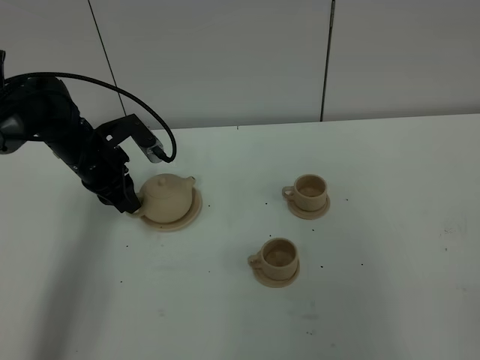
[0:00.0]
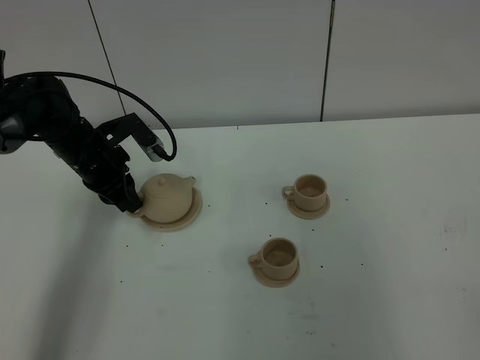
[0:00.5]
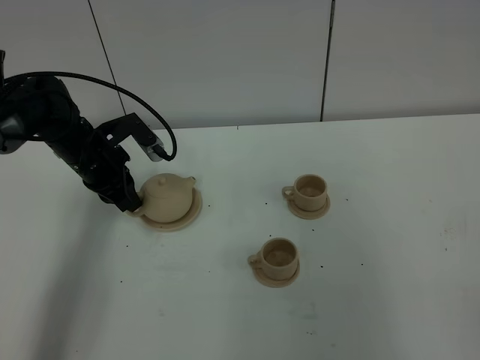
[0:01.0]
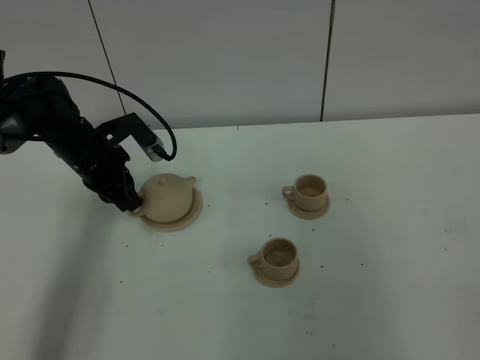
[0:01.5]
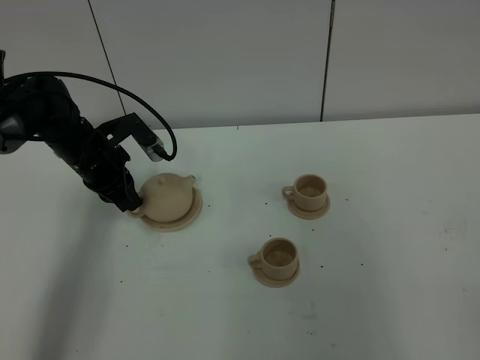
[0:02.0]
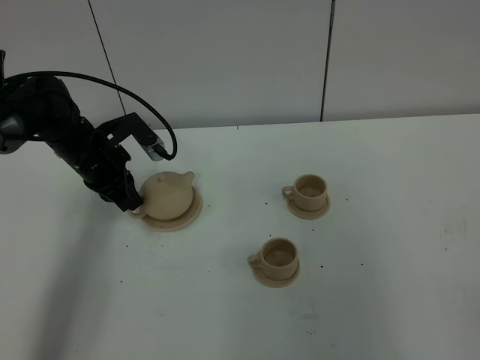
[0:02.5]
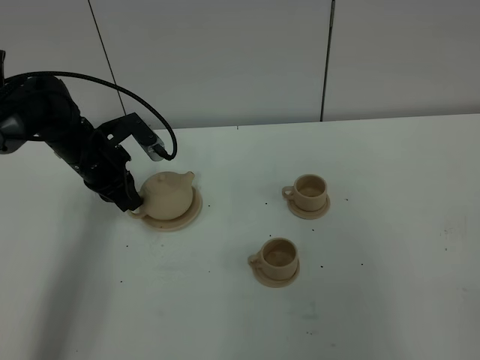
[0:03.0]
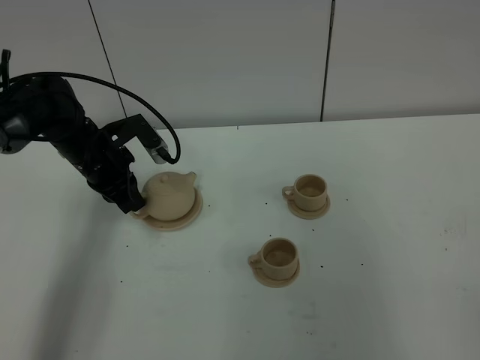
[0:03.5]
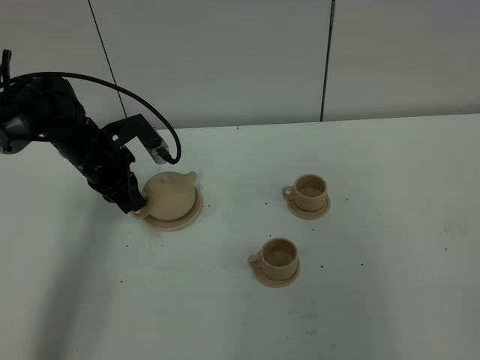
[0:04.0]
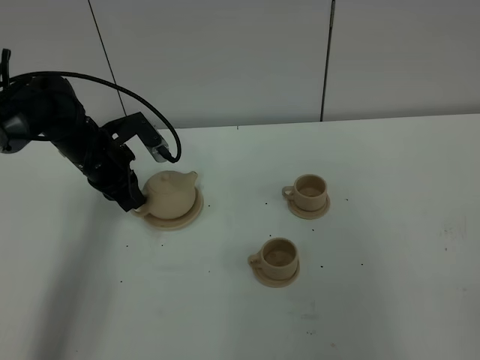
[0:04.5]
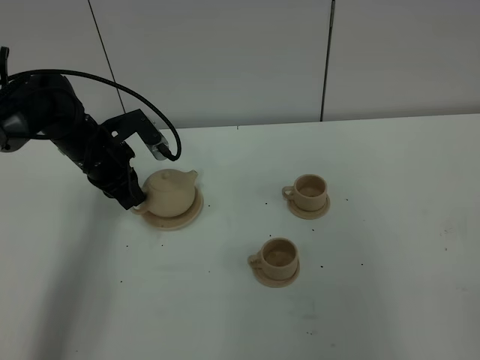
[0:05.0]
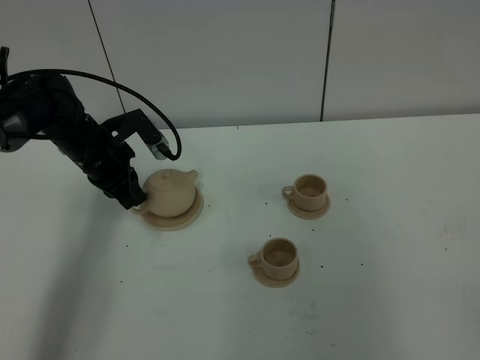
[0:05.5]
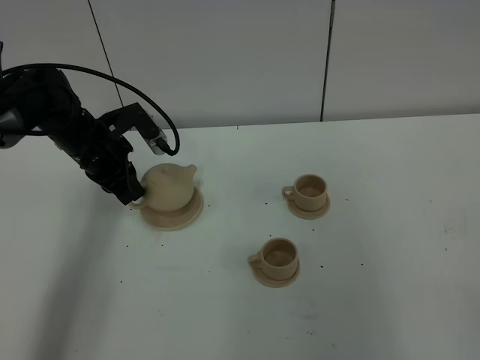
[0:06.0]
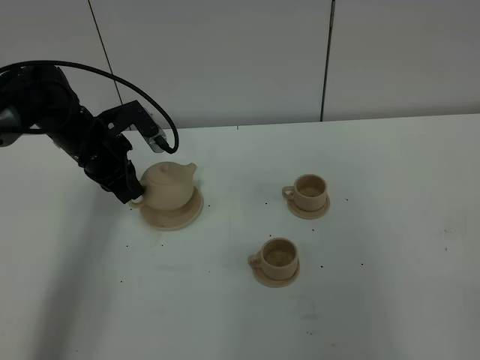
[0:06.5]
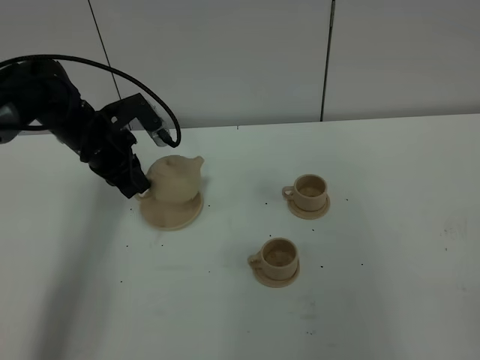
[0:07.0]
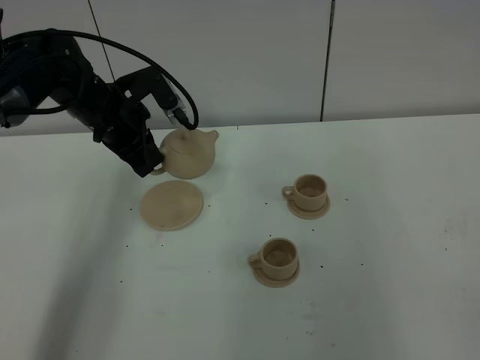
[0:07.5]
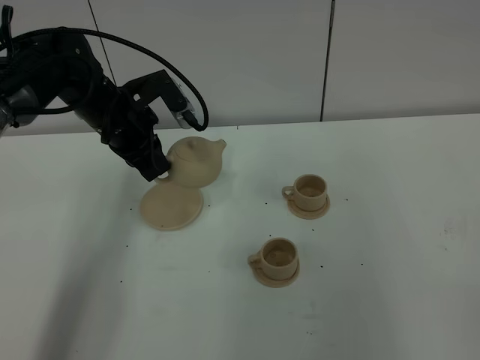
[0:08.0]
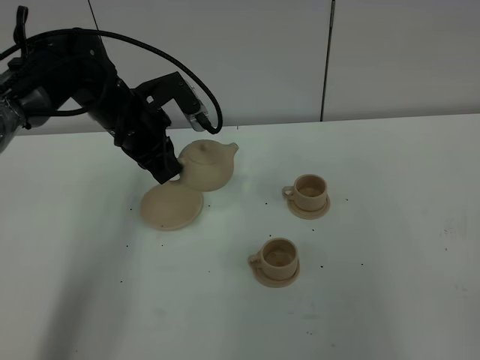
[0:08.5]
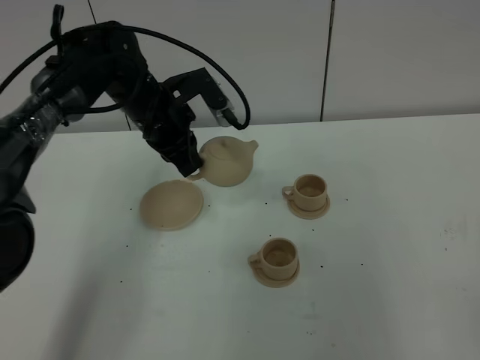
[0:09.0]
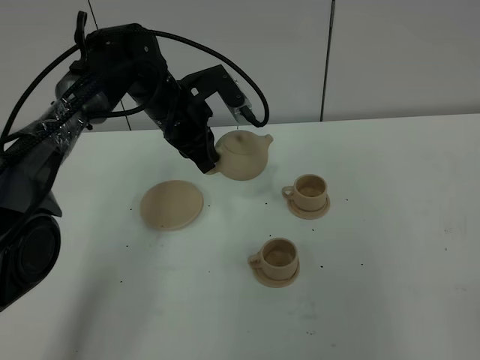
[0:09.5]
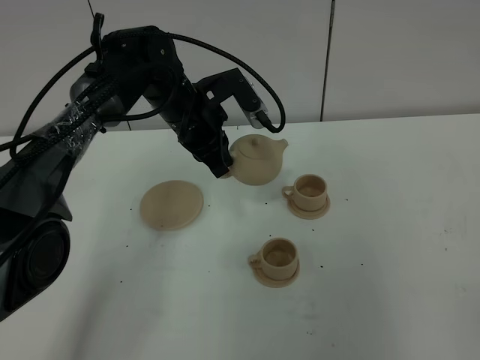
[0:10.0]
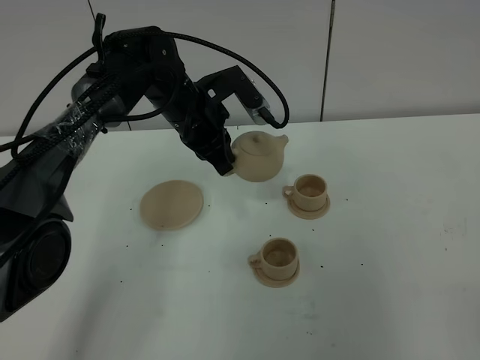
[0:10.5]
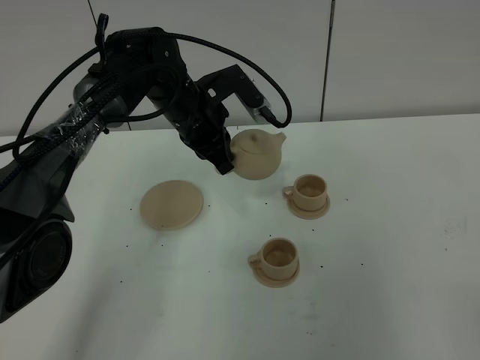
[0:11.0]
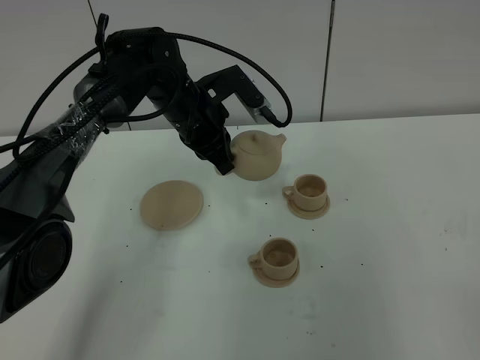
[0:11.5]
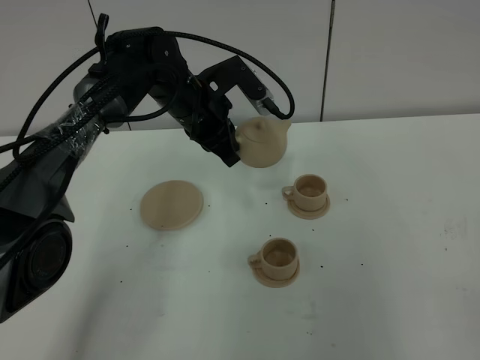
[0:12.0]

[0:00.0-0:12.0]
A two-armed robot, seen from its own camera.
Task of the whole recording: grasp the brown teapot and pour the tea into the two brown teacups one by one, put the brown teapot back in its original place.
Step, 0:00.0 to 0:06.0: Pick up the teapot with the left gripper.
0:00.0 to 0:02.0: The left gripper closes its fingers.
0:02.0 to 0:04.0: The two grippers keep their place.
0:04.0 to 0:06.0: The grippers stay close to where they were, moving slightly.
0:06.0 to 0:08.0: The left gripper goes about 5 cm upward.
0:08.0 to 0:10.0: The left gripper goes approximately 10 cm to the right.
0:10.0 to 0:12.0: The grippers make only small movements.

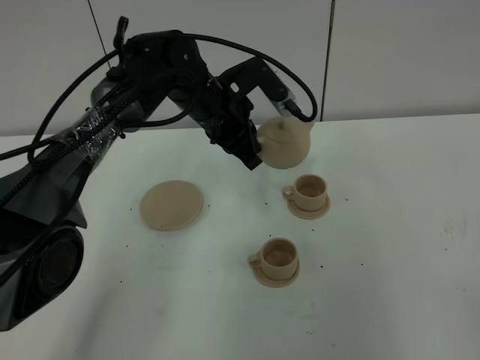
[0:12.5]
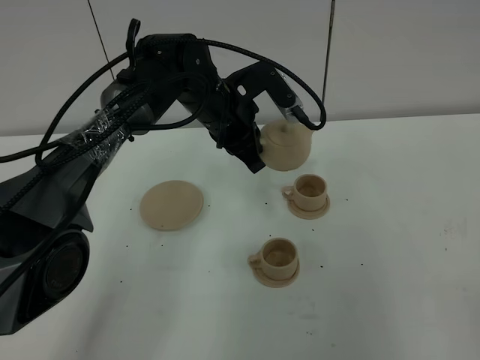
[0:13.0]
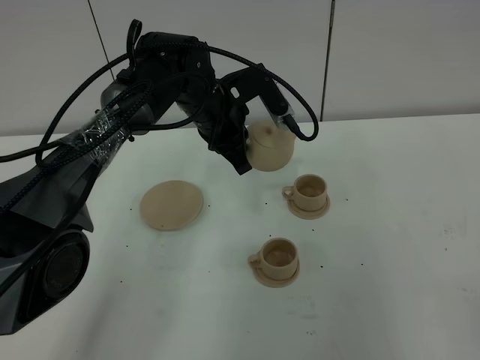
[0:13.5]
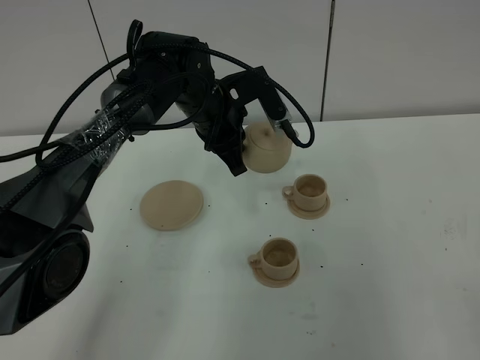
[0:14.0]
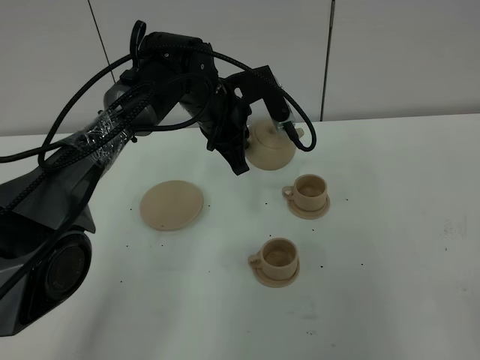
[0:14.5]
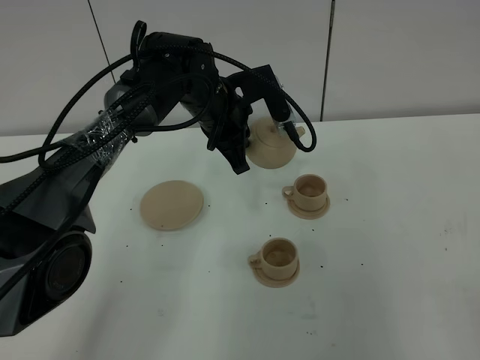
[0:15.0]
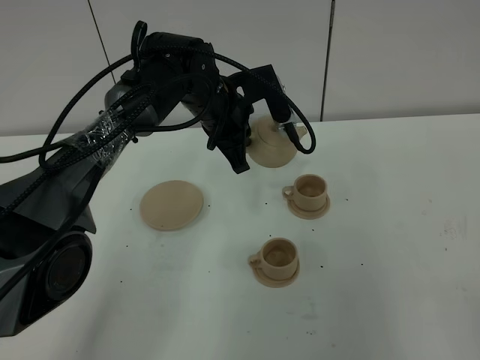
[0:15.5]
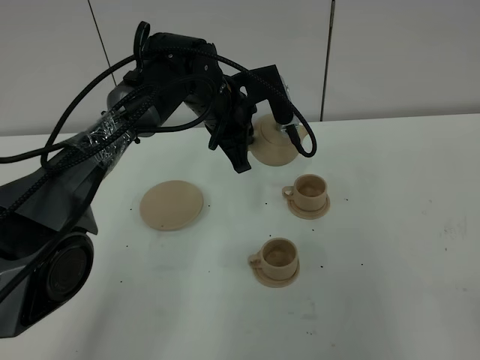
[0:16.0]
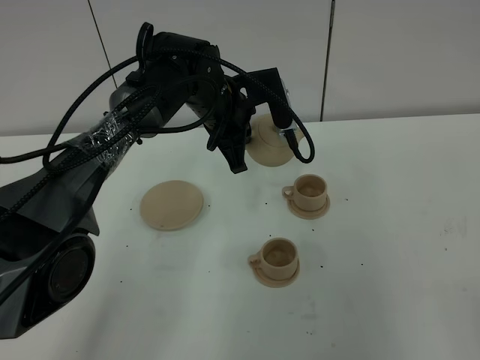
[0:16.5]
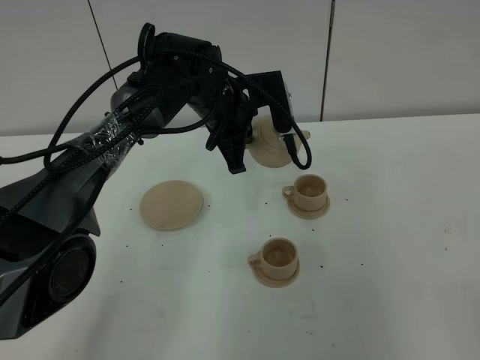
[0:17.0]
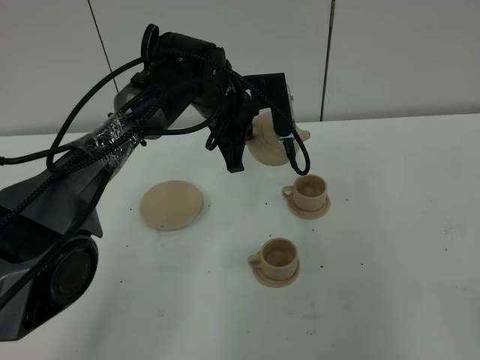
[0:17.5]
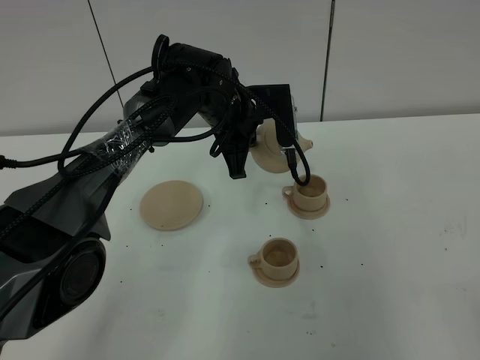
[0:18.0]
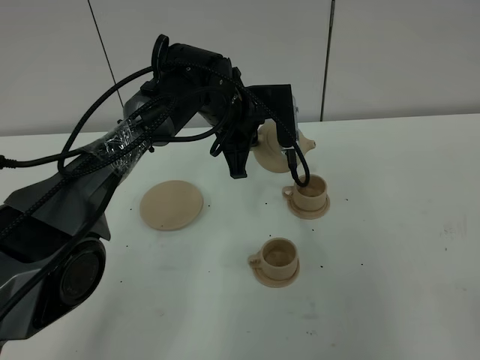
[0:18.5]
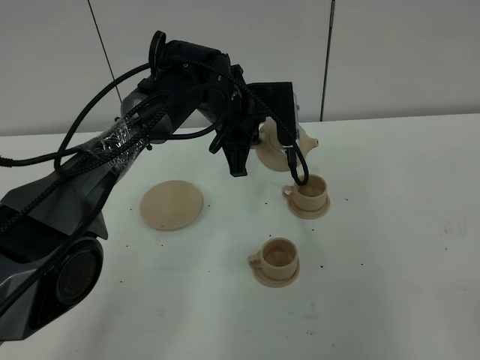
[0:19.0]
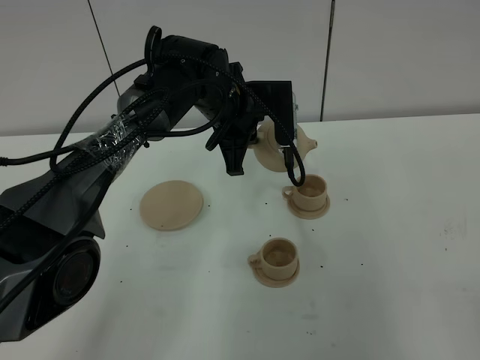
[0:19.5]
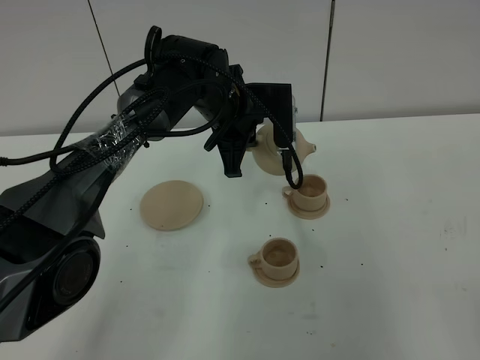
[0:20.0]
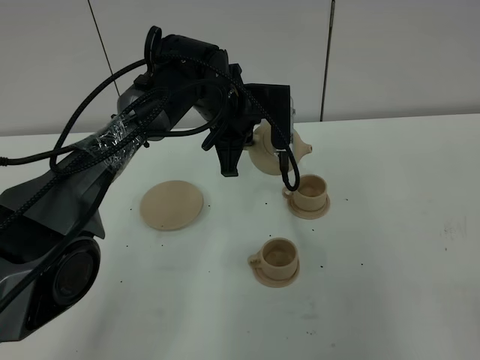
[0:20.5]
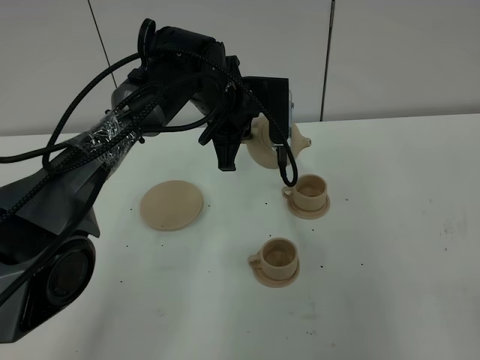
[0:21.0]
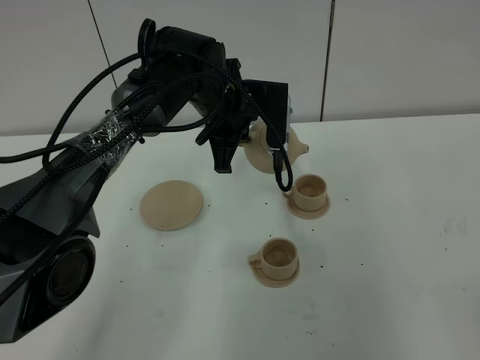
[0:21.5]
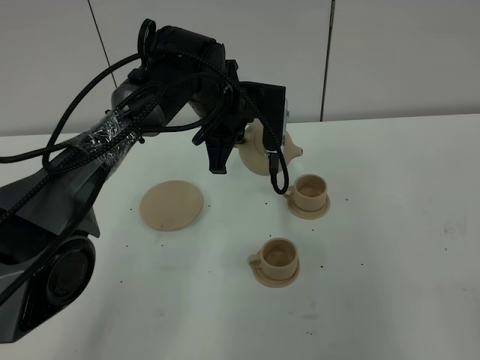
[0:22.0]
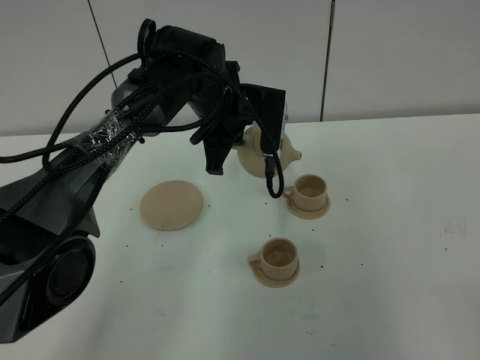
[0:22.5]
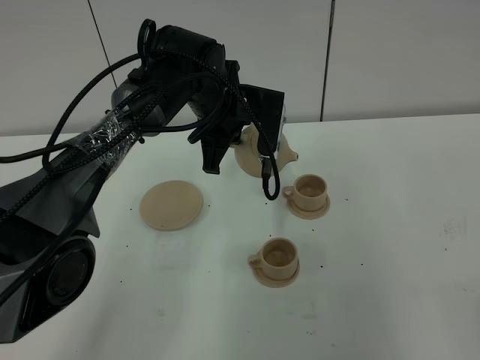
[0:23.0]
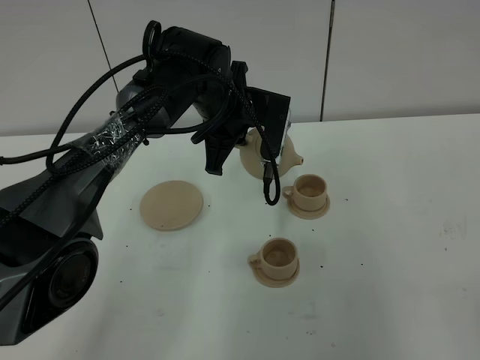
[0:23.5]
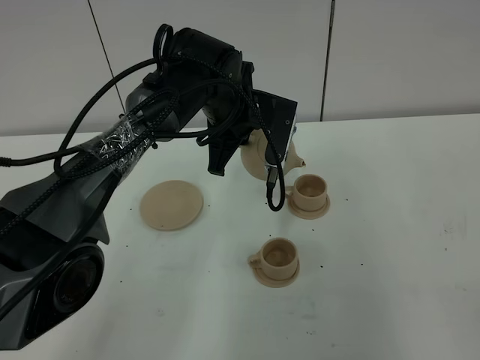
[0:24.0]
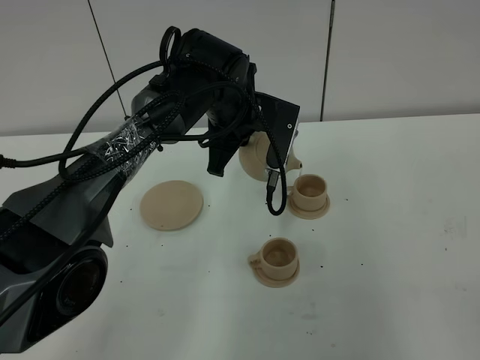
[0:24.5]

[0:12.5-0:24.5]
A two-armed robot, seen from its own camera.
Task of the whole recording: grasp the brown teapot and pour the tea into the two brown teacups one by one, put the brown teapot back in its original place.
0:12.5 to 0:14.5: The grippers move only a little.
0:14.5 to 0:18.5: The grippers make only small movements.
0:18.5 to 0:22.5: There are only small adjustments of the grippers.
0:22.5 to 0:24.5: The grippers move only a little.

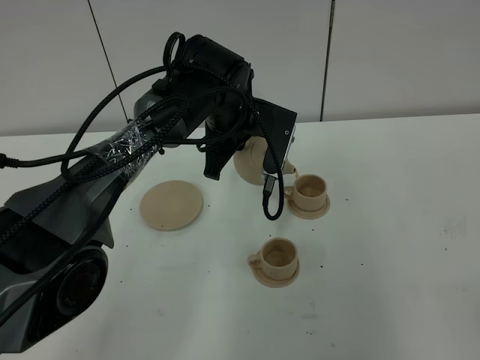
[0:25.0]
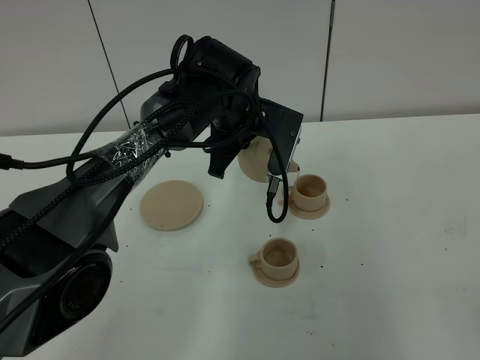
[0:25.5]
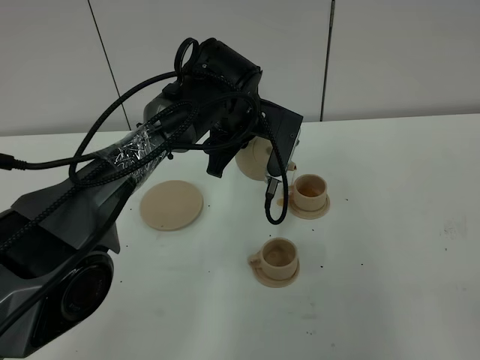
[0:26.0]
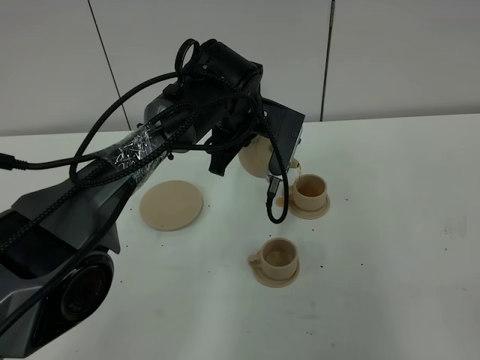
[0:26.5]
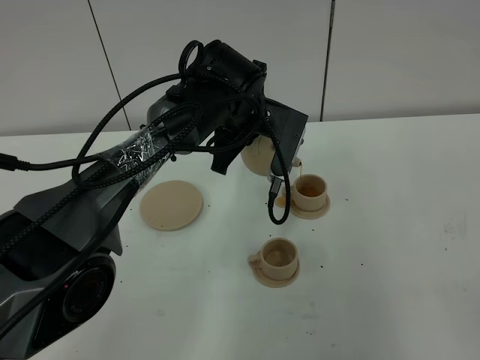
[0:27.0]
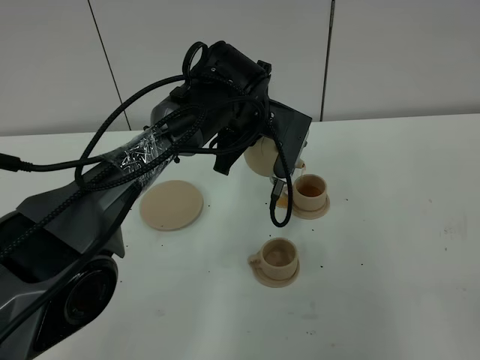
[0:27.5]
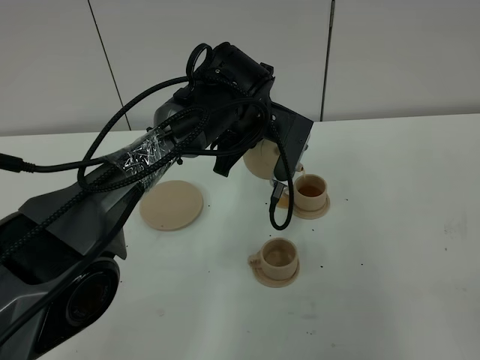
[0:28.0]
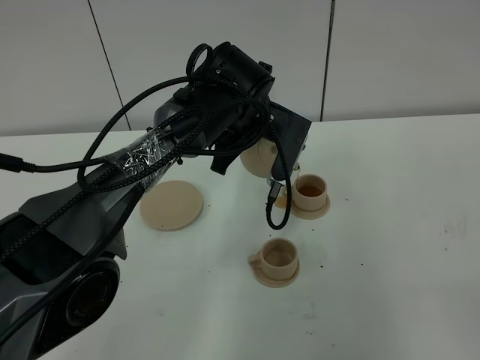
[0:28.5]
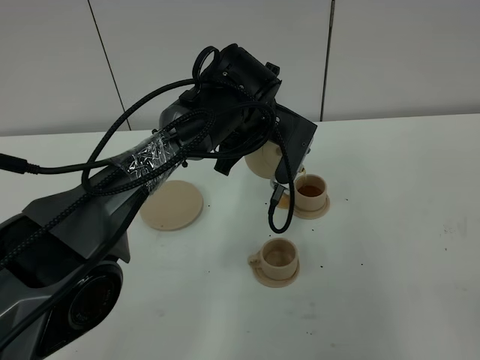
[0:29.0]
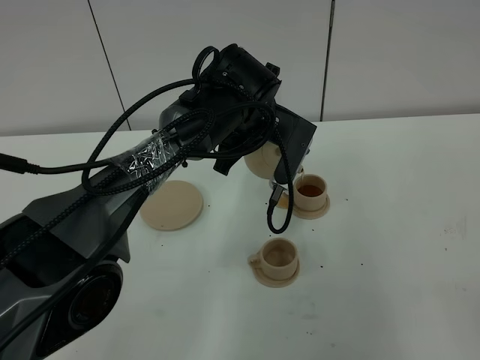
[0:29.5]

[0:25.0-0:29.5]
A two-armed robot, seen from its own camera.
Task of the whole recording: grasp the brown teapot and pour the tea into the two brown teacups one by one, put the brown teapot back in its original place.
0:25.0 to 0:29.5: The grippers stay close to where they were, moving slightly.
